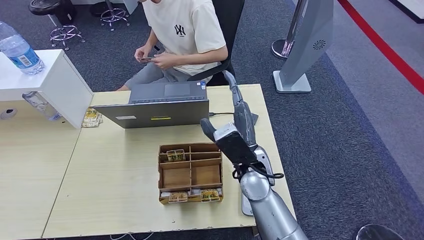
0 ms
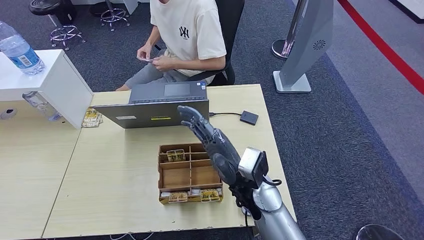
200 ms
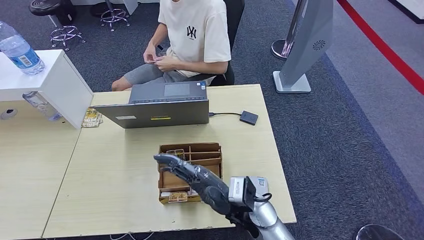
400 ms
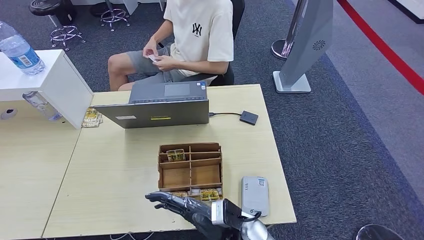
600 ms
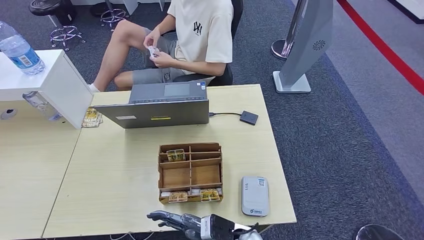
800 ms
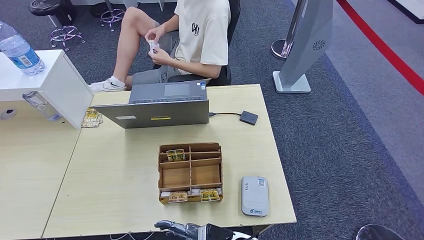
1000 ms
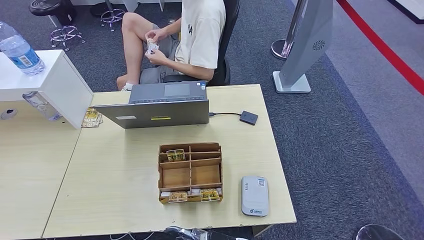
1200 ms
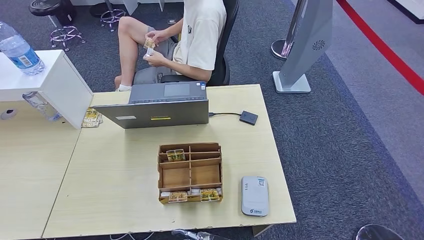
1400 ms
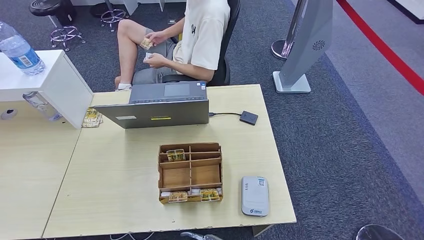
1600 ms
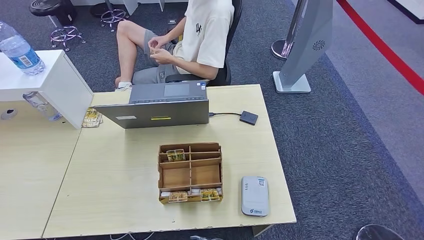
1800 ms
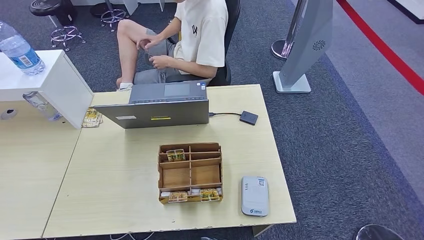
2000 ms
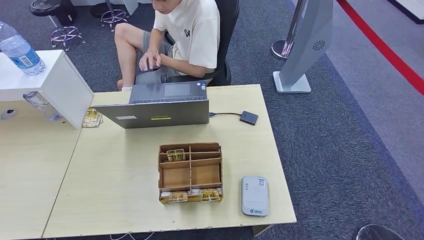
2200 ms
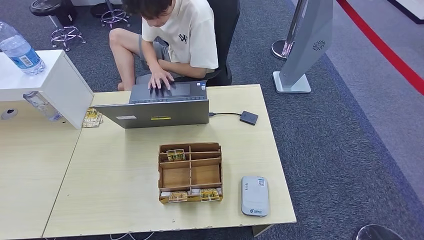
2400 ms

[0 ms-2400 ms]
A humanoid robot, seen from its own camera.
Step, 0 ms to 2400 ms: Hand the room key to the person.
0 ms to 1200 ms: The right hand goes some 25 cm downward and backward.
1200 ms to 2400 ms: The right hand moves to the right, downward and backward, roughly 15 cm.
